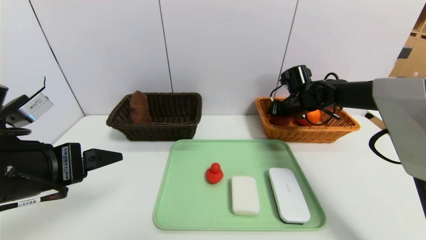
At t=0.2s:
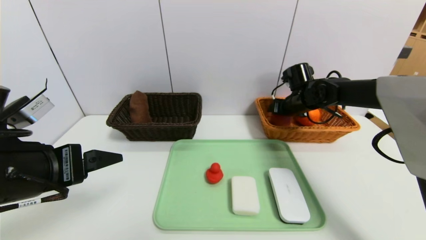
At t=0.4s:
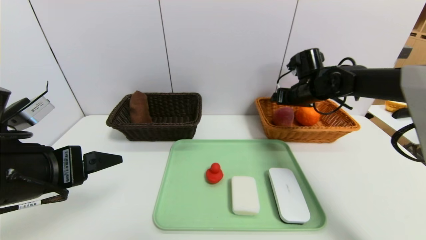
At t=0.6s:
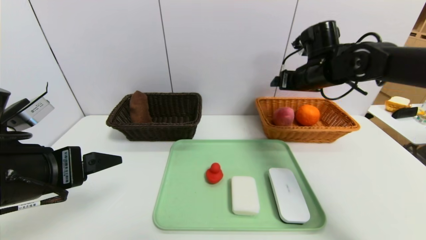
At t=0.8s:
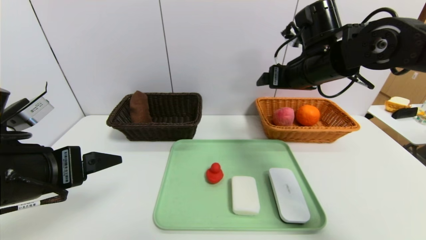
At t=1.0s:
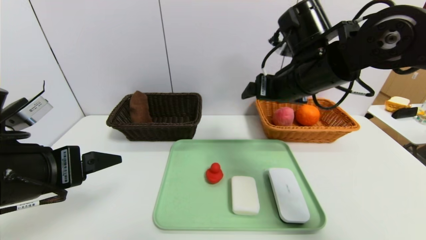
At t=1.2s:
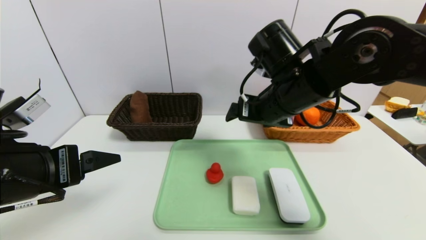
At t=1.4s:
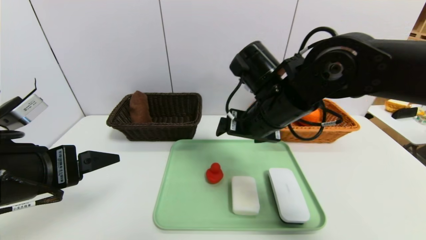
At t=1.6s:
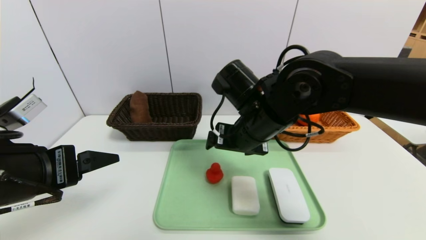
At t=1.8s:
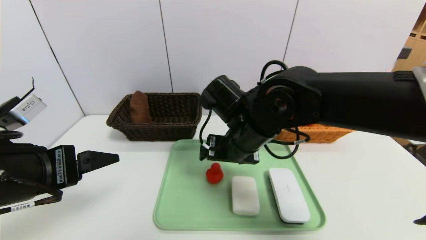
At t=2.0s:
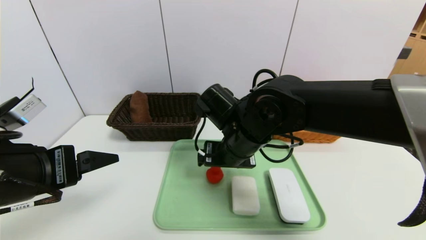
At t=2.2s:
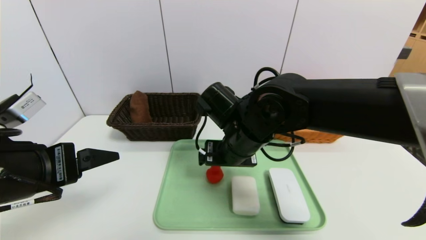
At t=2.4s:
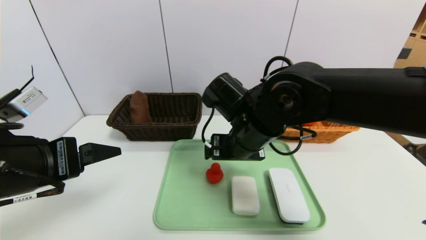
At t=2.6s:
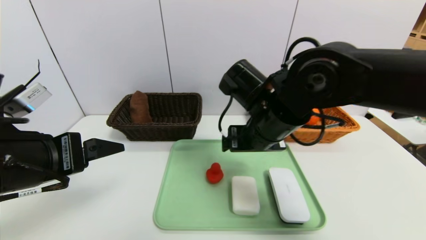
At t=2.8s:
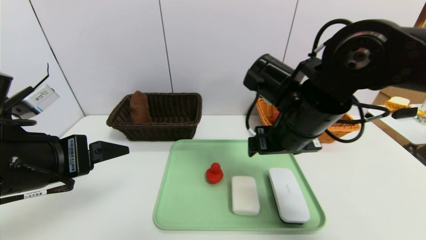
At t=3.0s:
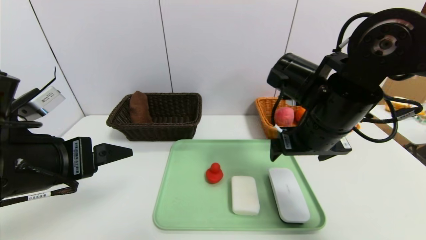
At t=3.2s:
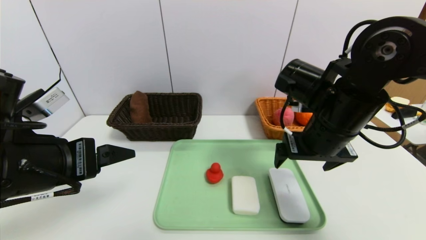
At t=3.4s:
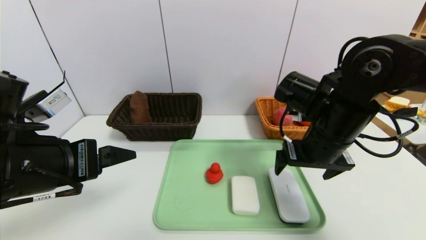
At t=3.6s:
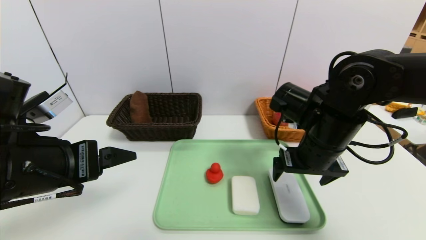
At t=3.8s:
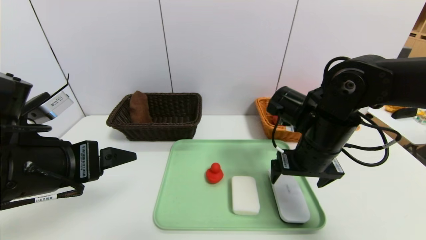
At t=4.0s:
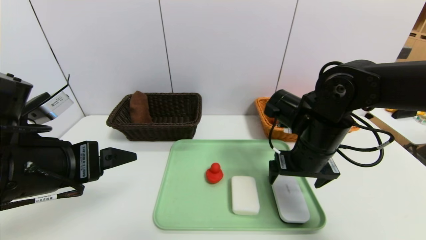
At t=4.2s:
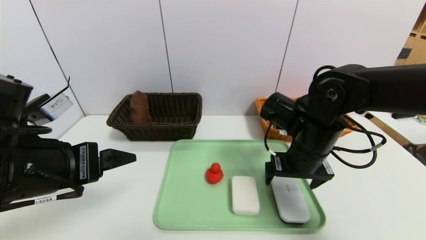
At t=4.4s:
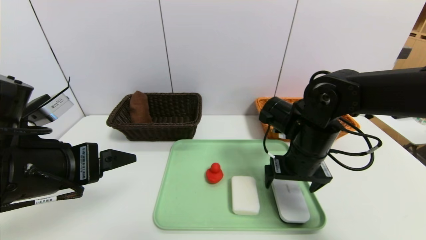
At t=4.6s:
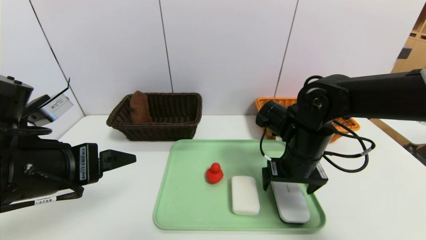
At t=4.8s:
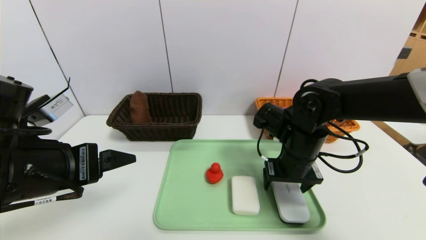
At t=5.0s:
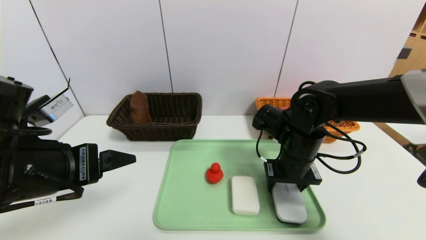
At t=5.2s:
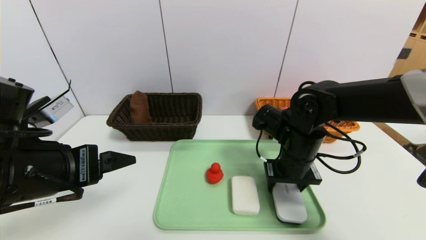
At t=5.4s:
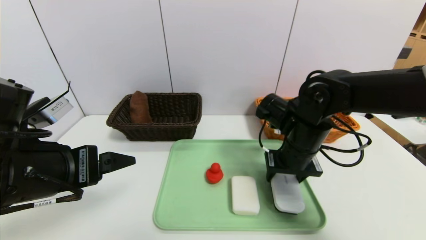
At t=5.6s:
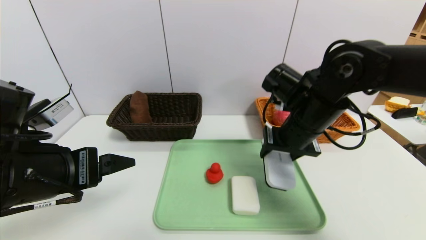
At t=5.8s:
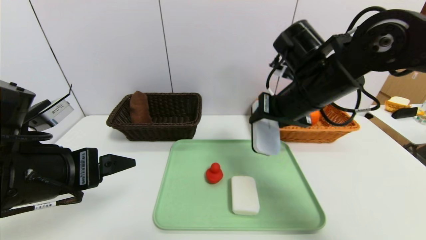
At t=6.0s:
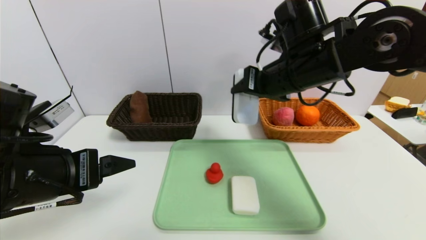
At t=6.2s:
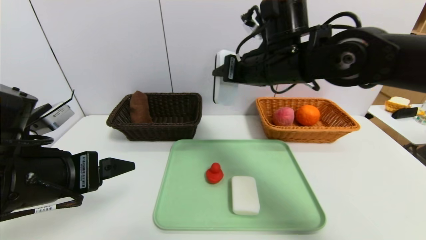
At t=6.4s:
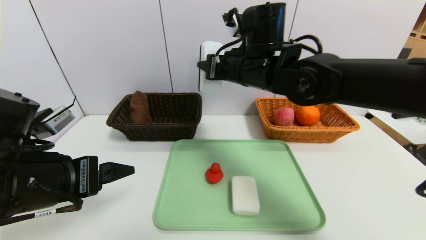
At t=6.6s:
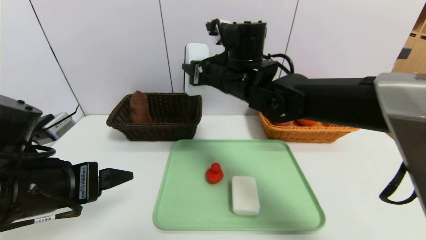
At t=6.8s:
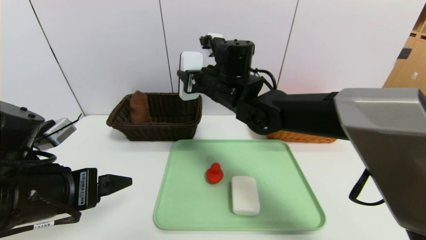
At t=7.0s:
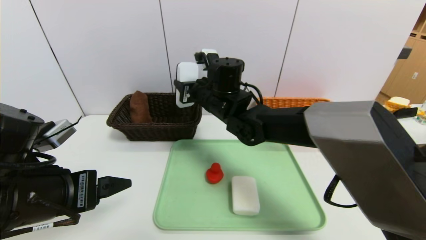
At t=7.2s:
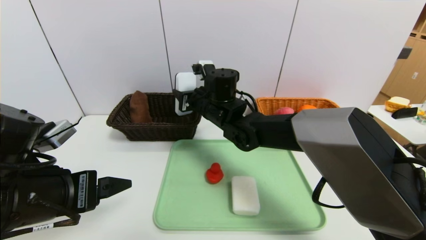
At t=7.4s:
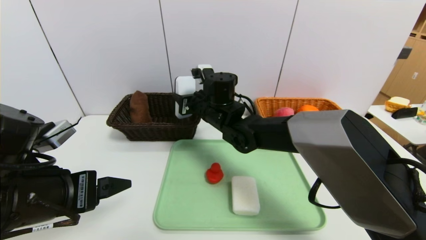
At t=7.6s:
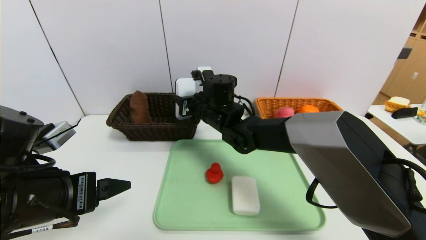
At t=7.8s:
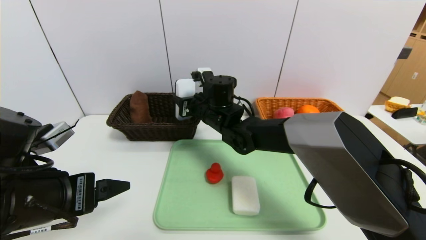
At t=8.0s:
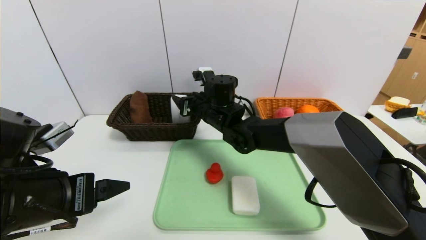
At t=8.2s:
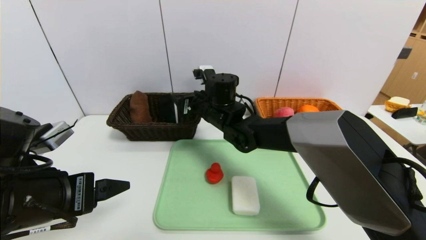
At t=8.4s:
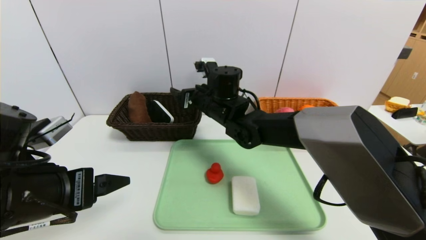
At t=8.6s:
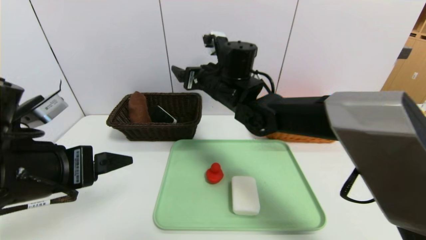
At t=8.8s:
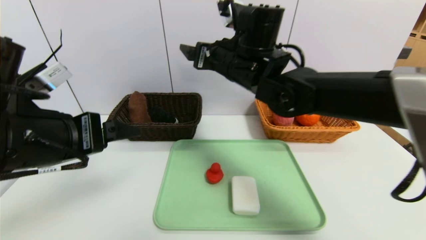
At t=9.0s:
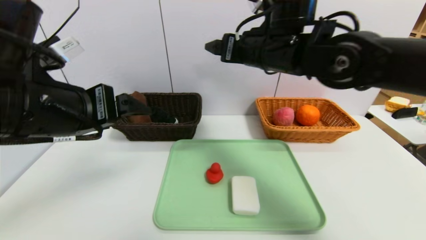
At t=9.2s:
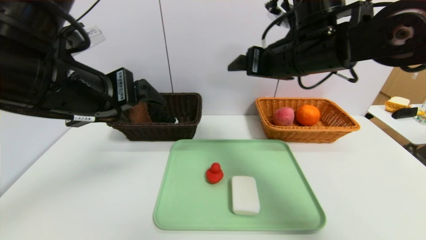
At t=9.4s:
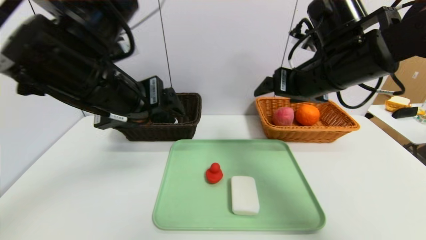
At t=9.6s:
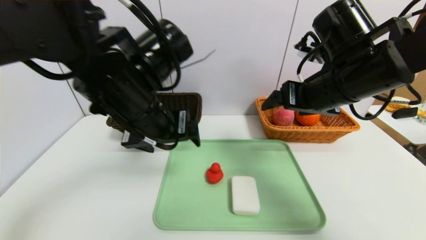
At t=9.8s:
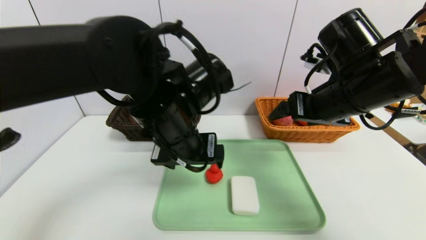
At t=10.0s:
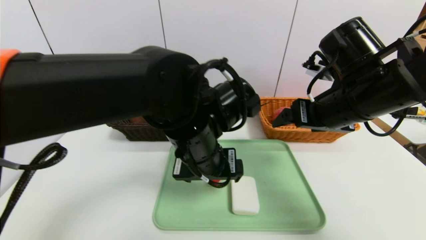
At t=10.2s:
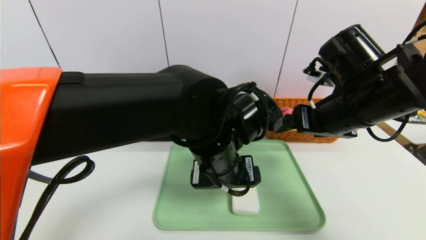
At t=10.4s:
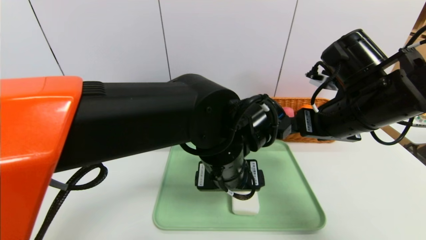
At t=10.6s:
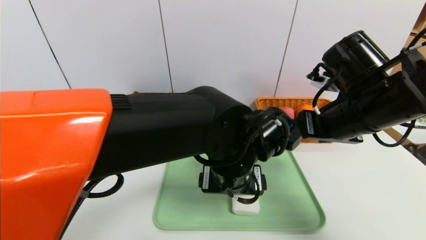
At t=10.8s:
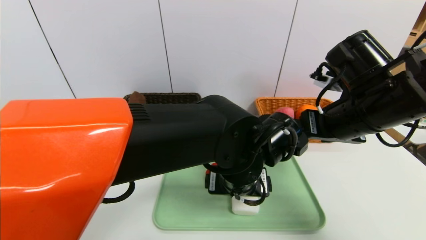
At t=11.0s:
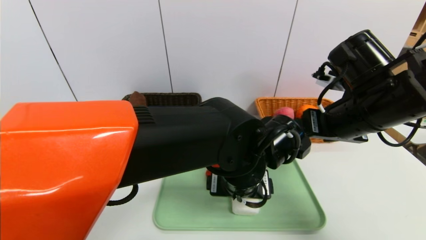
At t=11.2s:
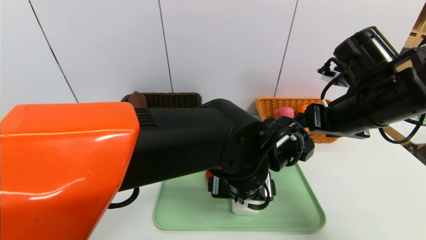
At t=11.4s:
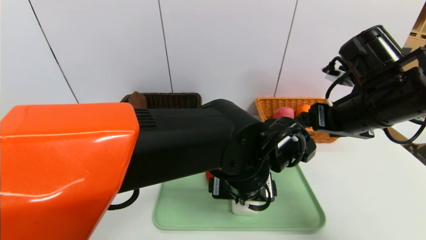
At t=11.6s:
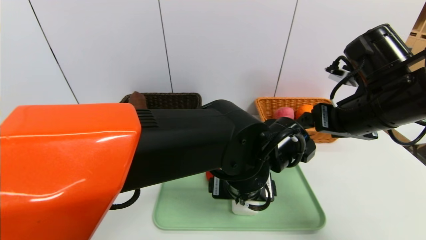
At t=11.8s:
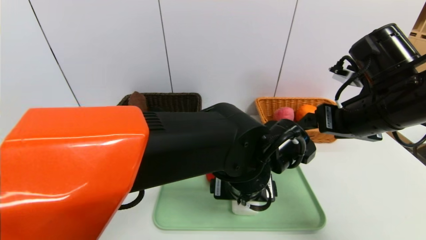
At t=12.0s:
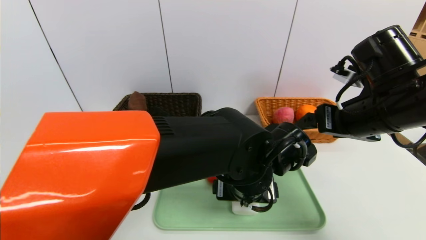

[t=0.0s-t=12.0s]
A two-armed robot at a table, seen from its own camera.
Task of the whole recording: place the food in the right basket with the right gripper, and place the non food items in the left basket with the left gripper.
t=0.0s to t=1.6s: The right gripper is displaced backward and to the left by approximately 25 cm, and opens its fingers.
t=1.6s to t=3.0s: The right gripper travels to the right by approximately 10 cm.
t=3.0s to t=4.4s: The right gripper travels downward by some 10 cm.
t=4.4s to t=6.0s: The right gripper is displaced upward by about 15 cm, and closes up.
t=6.0s to t=7.6s: The right gripper is displaced to the left, downward and forward by about 20 cm.
t=7.6s to t=9.0s: The right gripper is displaced upward, to the right and backward by roughly 20 cm, and opens up. Meanwhile the left gripper goes some 10 cm upward.
t=9.0s to t=10.4s: The left gripper shifts roughly 25 cm to the right and downward. The right gripper heads to the right, backward and downward, covering about 15 cm.
t=10.4s to t=12.0s: The left gripper ends up roughly 5 cm from where it was.

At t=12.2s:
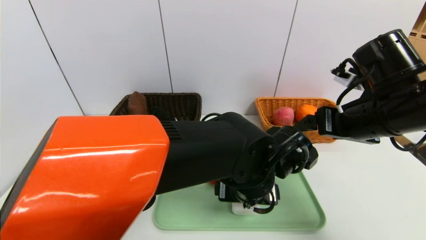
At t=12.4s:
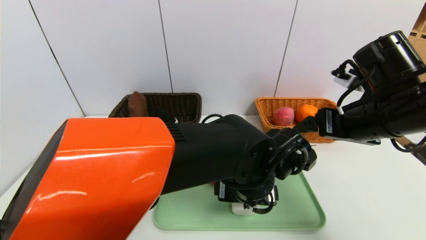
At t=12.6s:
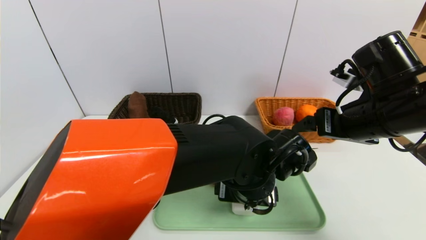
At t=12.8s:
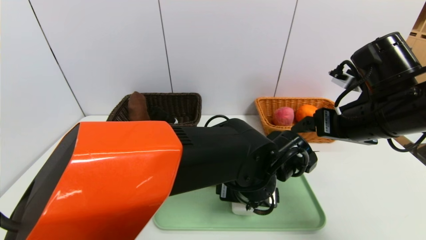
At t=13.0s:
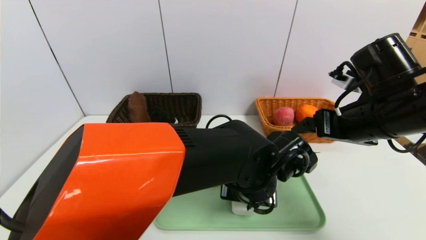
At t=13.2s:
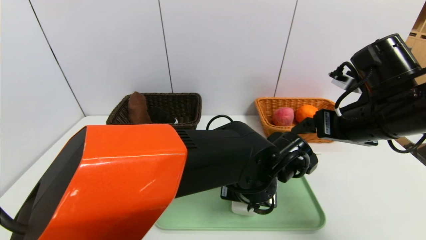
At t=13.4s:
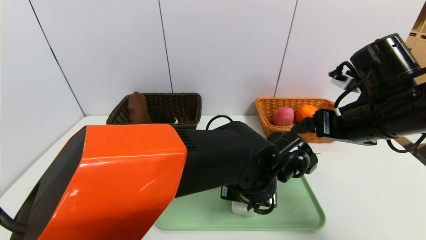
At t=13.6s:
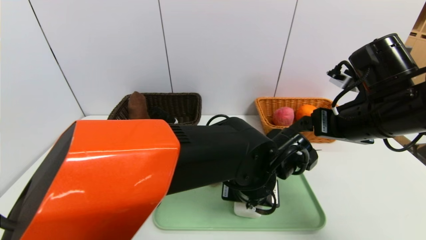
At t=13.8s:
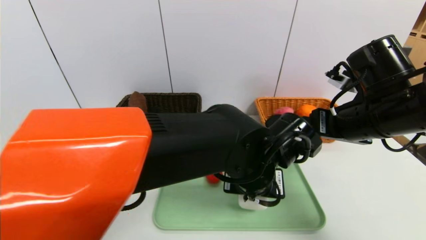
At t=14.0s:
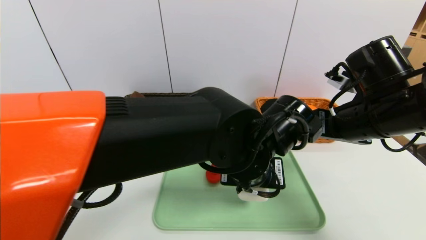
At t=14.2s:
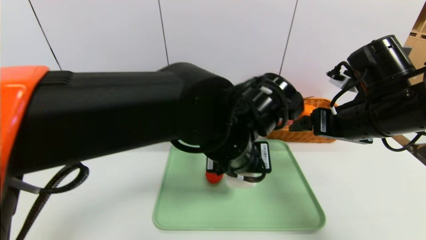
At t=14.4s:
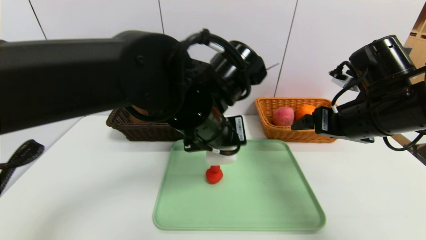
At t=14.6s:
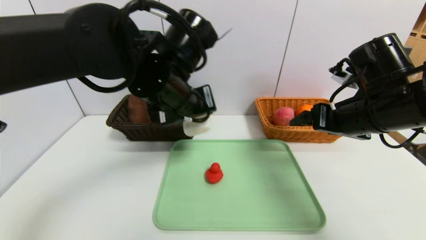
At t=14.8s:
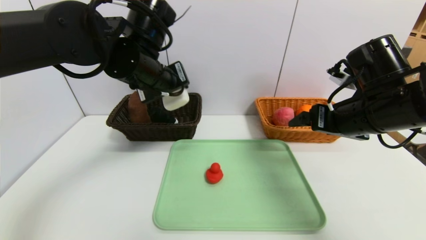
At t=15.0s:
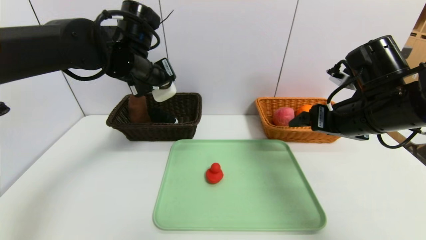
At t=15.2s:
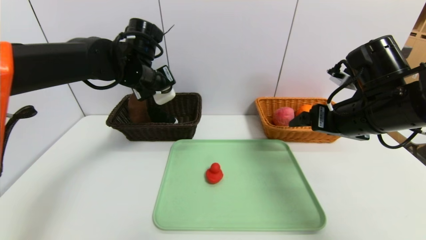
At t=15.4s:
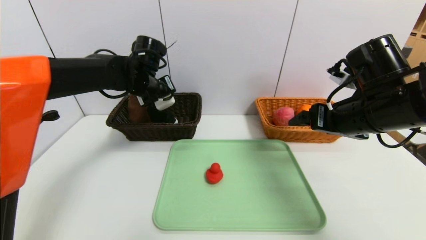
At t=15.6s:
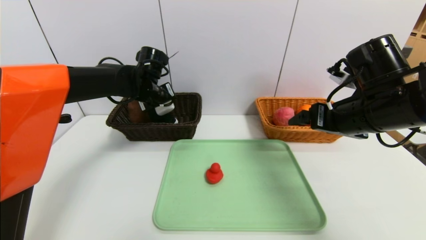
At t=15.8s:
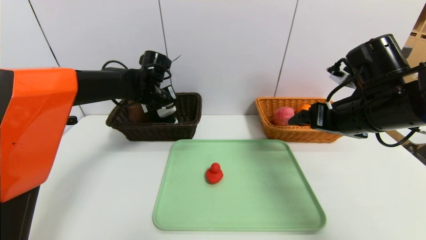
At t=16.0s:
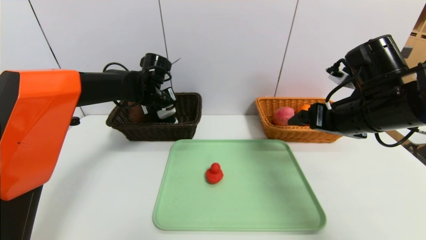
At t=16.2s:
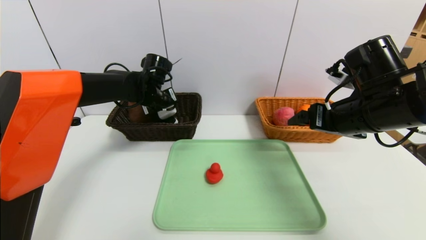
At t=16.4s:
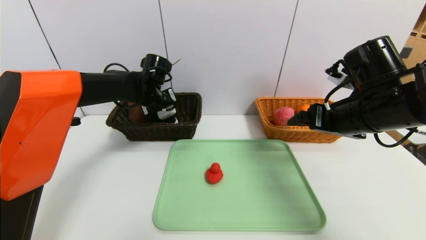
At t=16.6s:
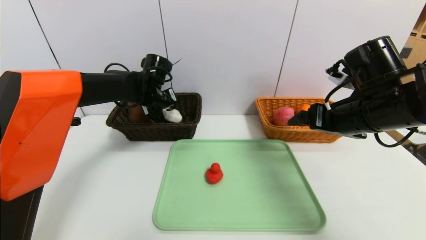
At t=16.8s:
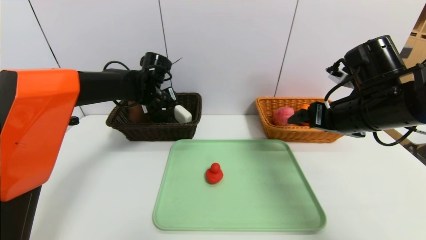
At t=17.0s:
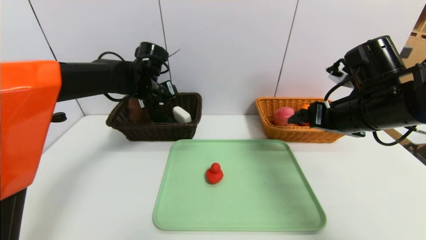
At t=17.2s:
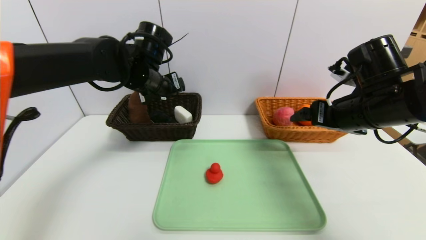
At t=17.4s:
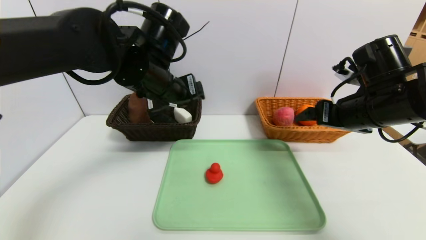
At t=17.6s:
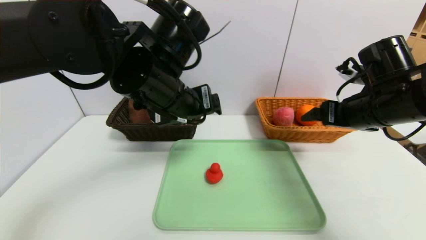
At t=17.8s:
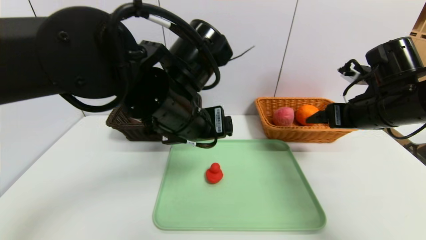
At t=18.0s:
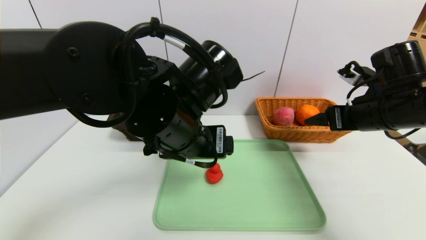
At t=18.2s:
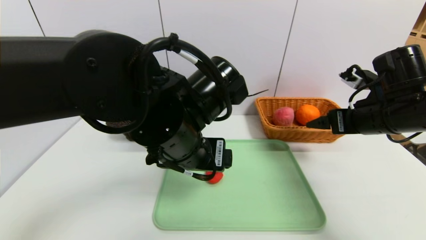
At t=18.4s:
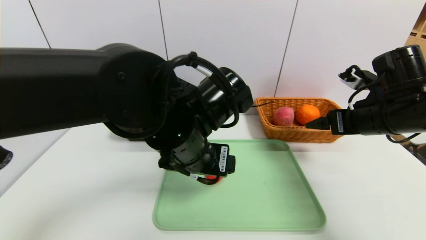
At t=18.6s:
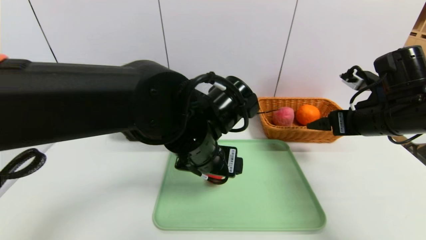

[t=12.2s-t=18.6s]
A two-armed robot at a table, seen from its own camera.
Task of the whole recording: place the food in the right basket with the right gripper, and place the non food items in the left basket with the left gripper.
Step, t=12.2s to t=17.2s: Grasp the white eraser and put it in the left basket.
t=12.2s to t=13.8s: The left gripper closes.
t=13.8s to t=15.4s: The left gripper shifts about 30 cm to the left and forward.
t=15.4s to t=17.0s: The left gripper opens up.
t=17.0s to t=18.6s: The left gripper shifts approximately 25 cm backward and to the right.
